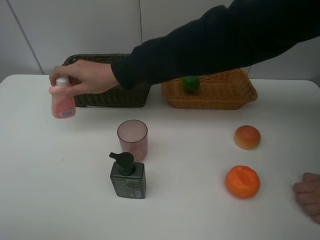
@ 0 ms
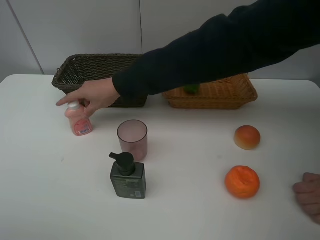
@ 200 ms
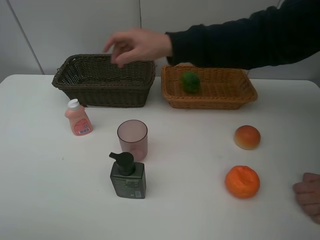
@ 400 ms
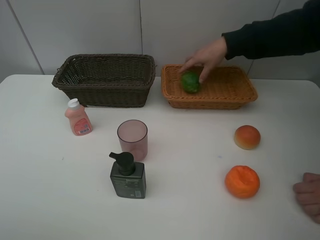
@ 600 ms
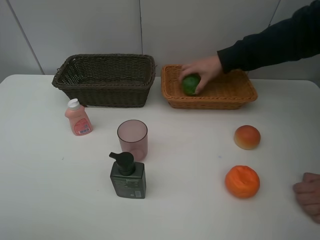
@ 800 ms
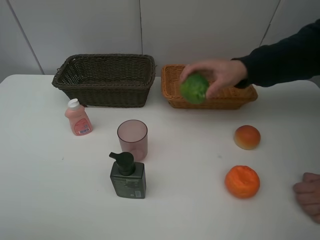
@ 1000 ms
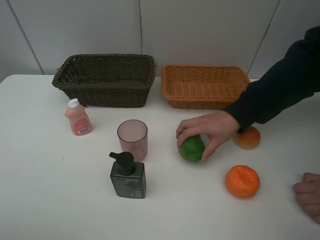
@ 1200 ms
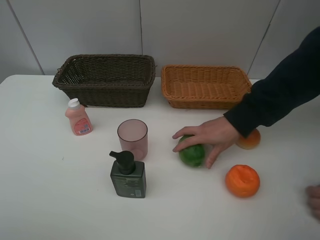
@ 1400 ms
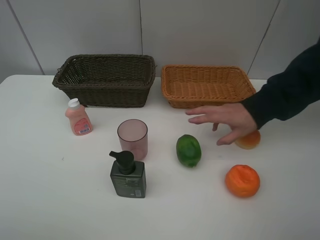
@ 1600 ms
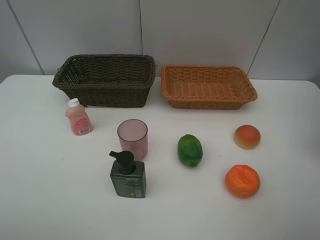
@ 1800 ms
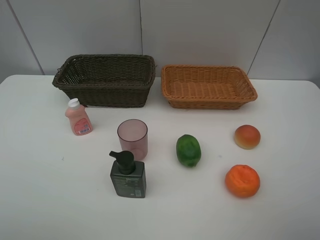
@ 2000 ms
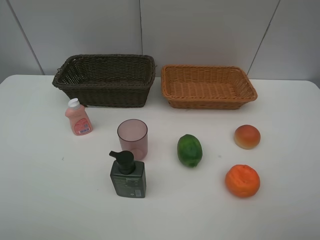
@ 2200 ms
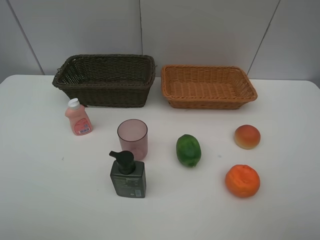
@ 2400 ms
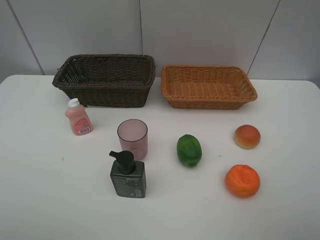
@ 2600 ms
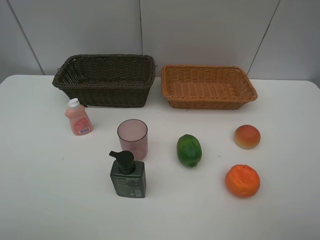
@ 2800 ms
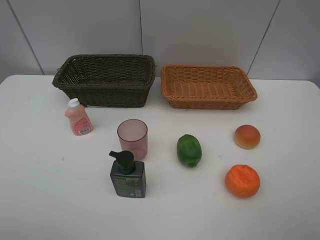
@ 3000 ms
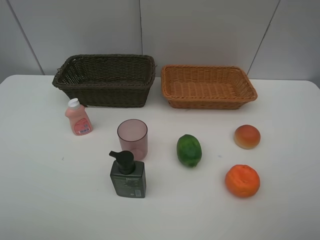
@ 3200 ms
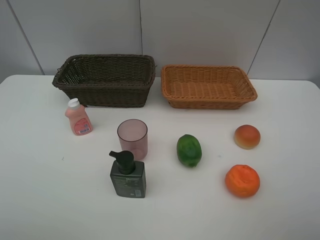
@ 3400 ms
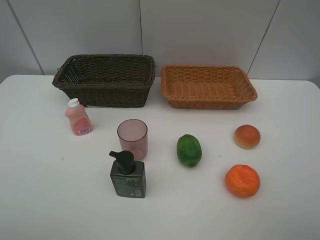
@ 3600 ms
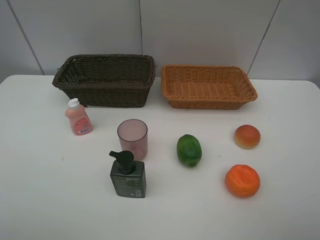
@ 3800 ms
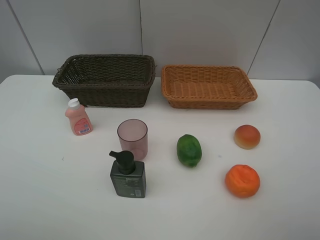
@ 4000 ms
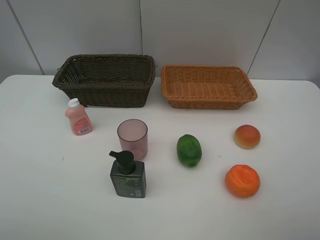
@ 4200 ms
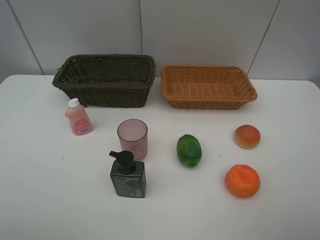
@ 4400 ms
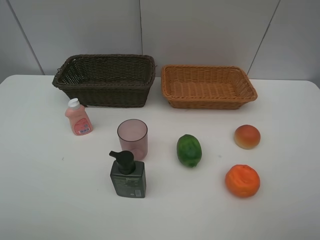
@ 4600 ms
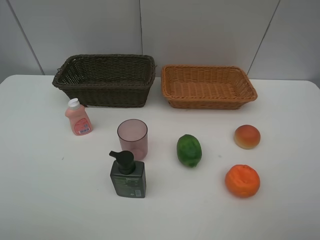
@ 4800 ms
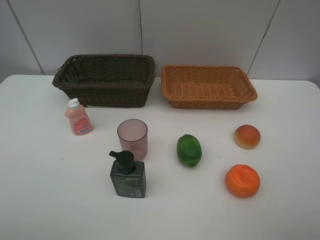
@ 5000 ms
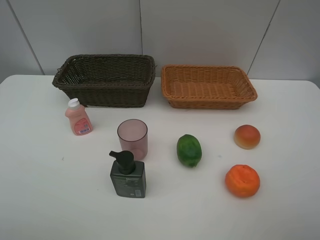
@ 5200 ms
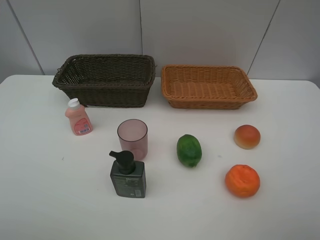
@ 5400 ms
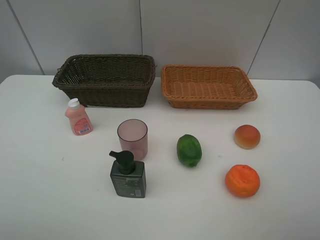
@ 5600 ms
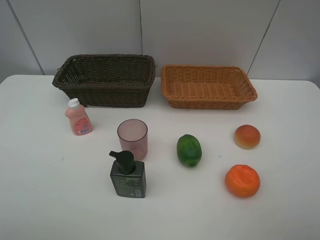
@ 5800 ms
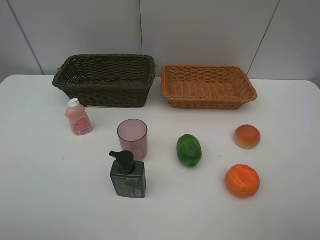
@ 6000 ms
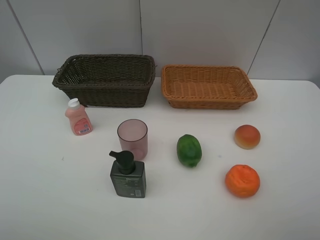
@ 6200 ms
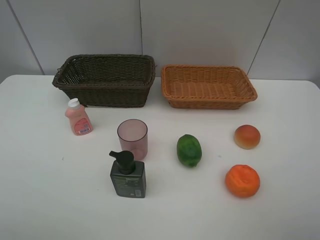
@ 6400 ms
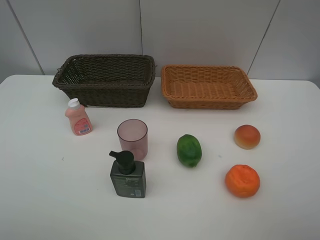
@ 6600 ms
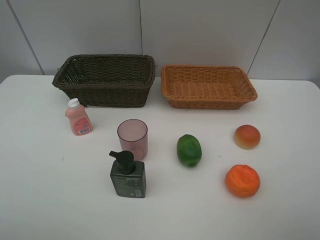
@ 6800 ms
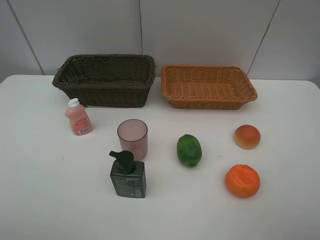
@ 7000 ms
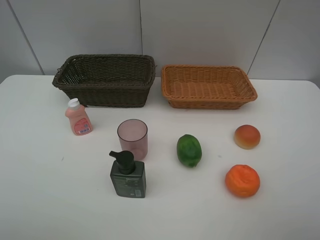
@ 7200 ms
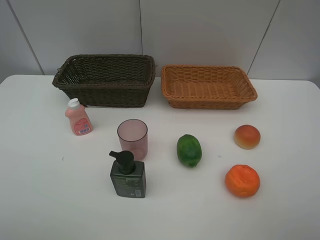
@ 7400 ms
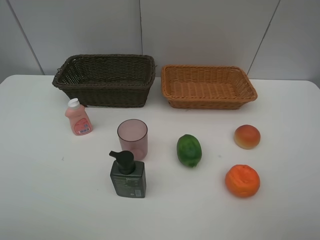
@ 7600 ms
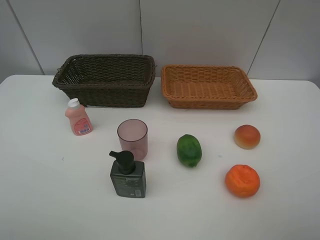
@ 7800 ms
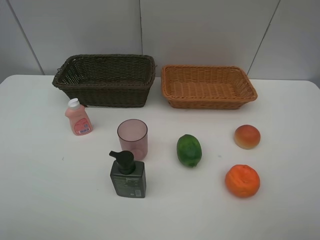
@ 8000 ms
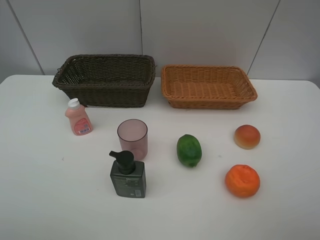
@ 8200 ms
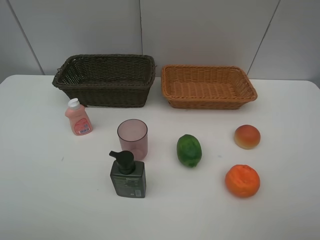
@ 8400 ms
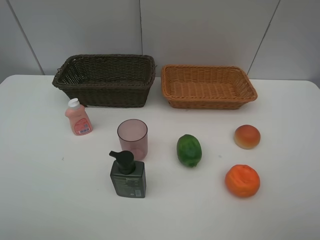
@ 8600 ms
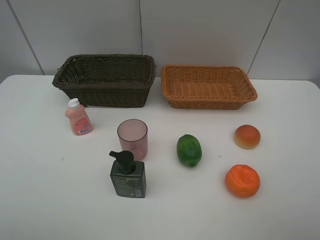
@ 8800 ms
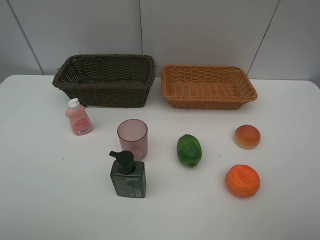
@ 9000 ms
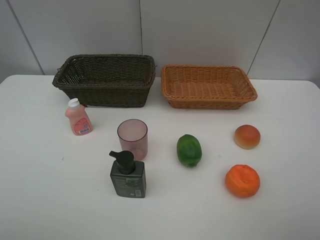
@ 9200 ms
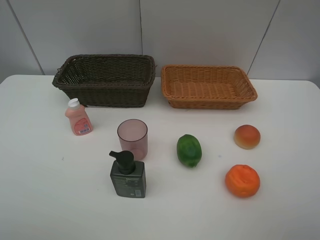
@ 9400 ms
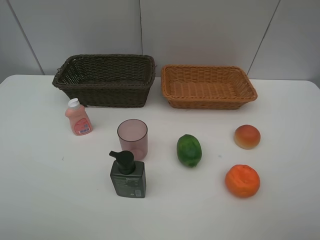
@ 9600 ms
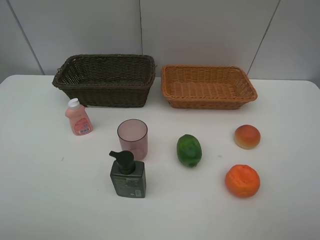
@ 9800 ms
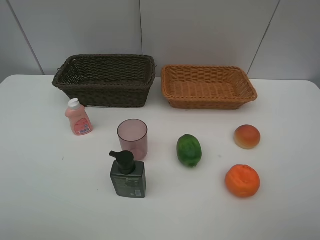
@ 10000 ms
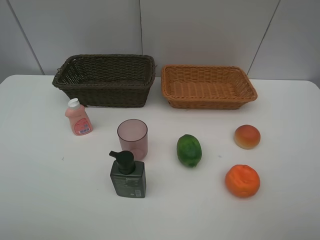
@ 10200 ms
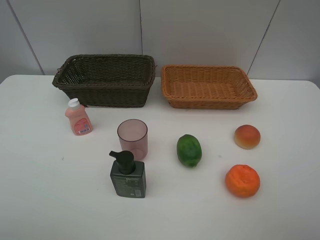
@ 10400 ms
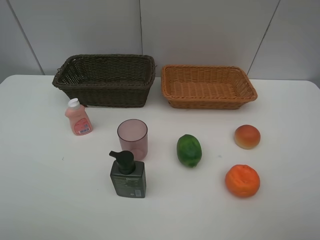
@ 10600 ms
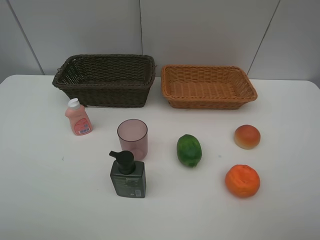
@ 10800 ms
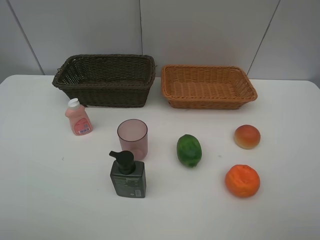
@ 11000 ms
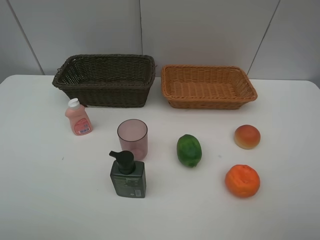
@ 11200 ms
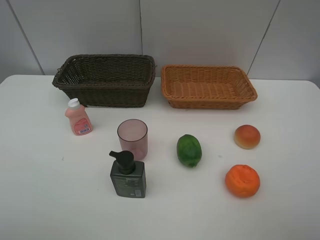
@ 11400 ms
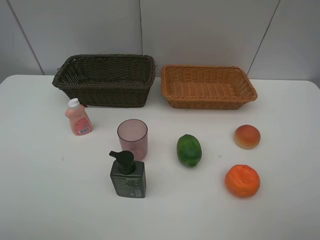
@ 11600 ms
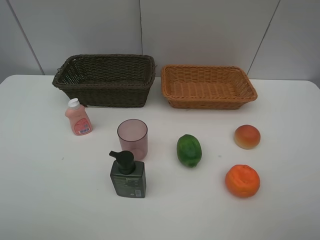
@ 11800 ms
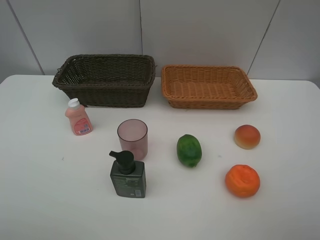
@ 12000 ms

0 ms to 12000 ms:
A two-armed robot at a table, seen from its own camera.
Task of the whole recording: place multiple objects separately in different baskets.
1600 ms to 12000 ms: Both grippers stay put.

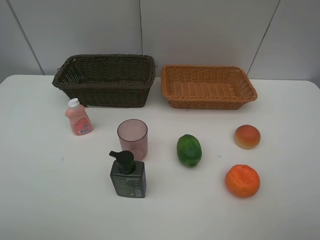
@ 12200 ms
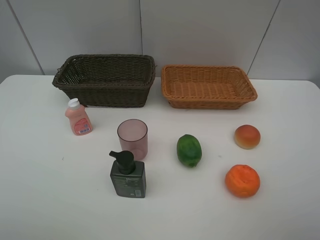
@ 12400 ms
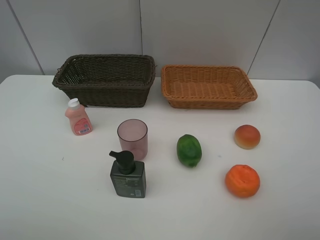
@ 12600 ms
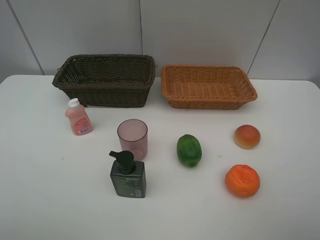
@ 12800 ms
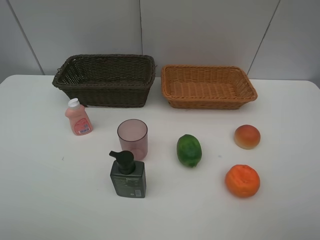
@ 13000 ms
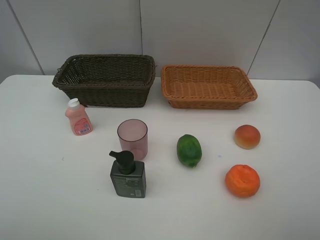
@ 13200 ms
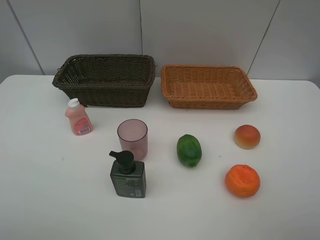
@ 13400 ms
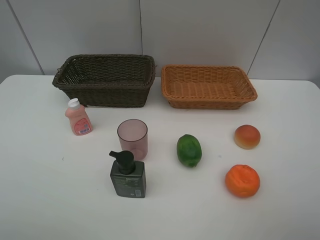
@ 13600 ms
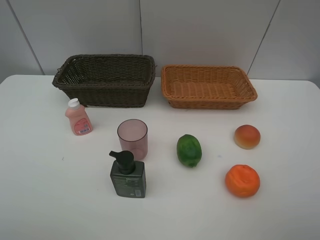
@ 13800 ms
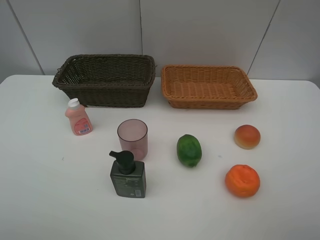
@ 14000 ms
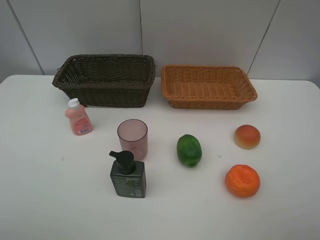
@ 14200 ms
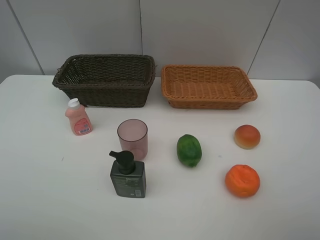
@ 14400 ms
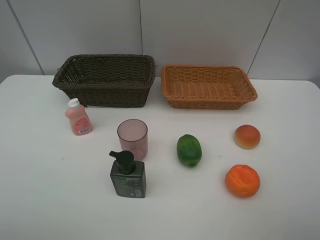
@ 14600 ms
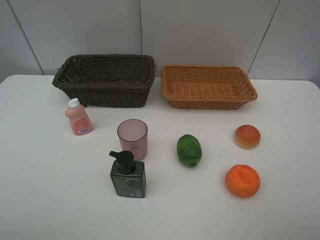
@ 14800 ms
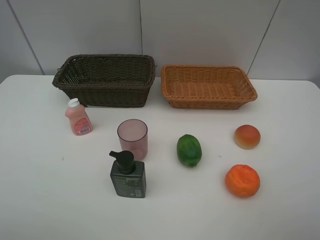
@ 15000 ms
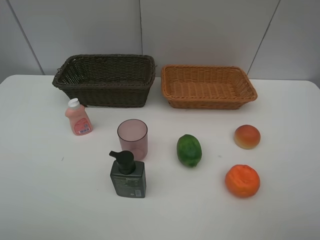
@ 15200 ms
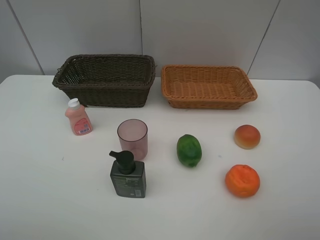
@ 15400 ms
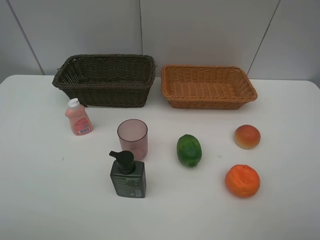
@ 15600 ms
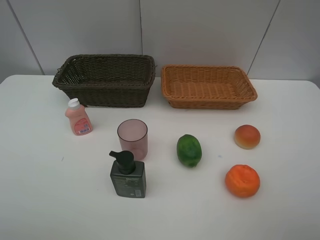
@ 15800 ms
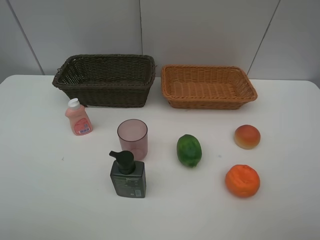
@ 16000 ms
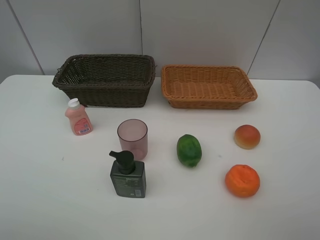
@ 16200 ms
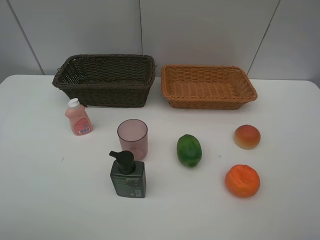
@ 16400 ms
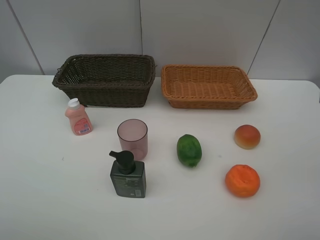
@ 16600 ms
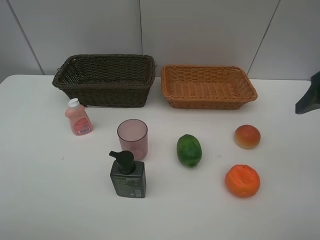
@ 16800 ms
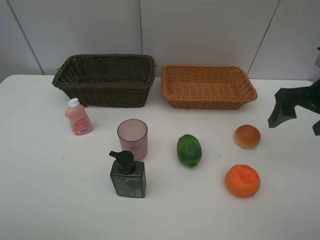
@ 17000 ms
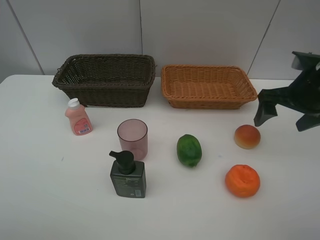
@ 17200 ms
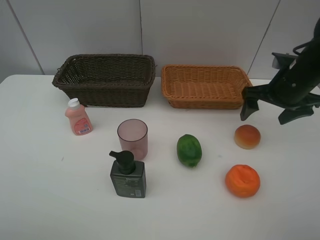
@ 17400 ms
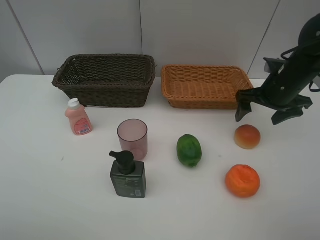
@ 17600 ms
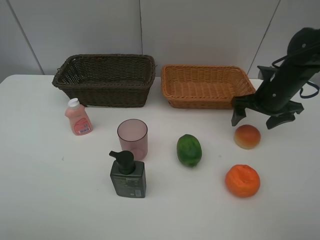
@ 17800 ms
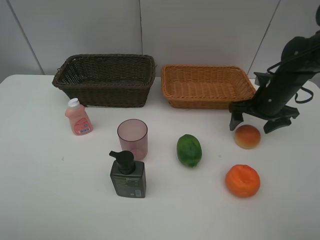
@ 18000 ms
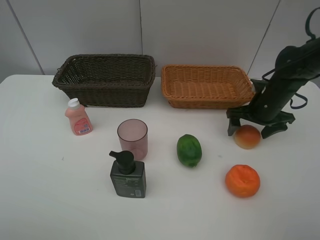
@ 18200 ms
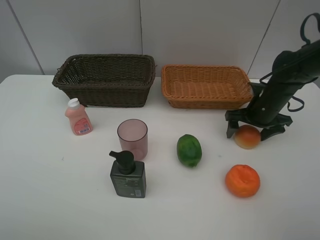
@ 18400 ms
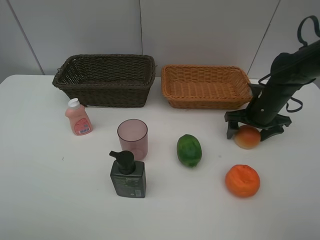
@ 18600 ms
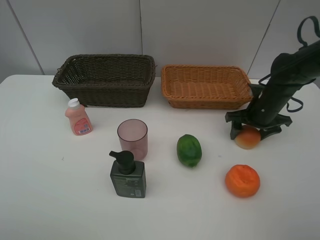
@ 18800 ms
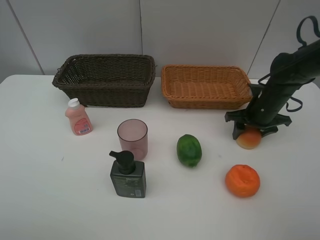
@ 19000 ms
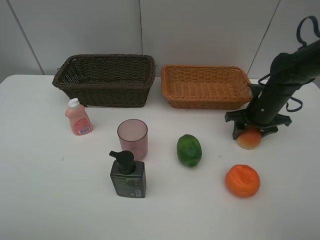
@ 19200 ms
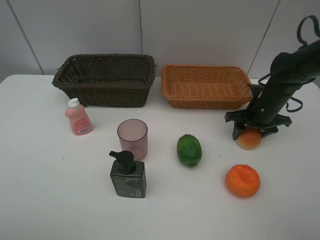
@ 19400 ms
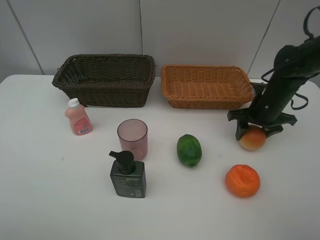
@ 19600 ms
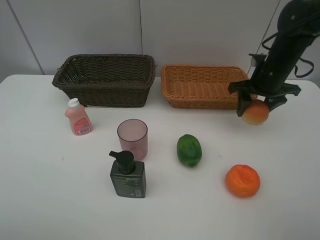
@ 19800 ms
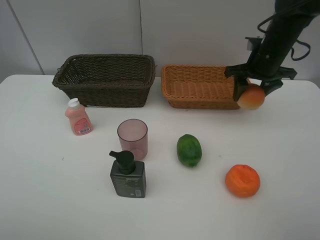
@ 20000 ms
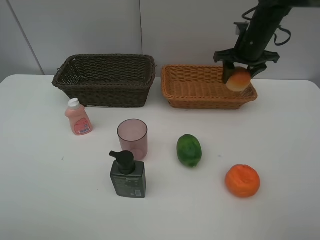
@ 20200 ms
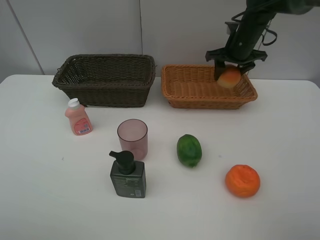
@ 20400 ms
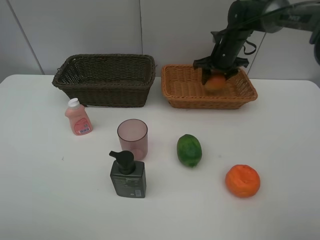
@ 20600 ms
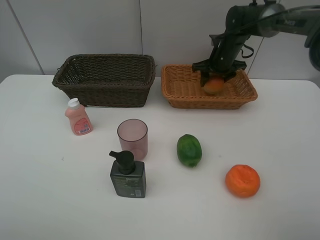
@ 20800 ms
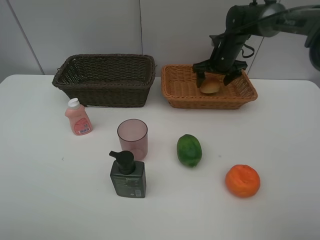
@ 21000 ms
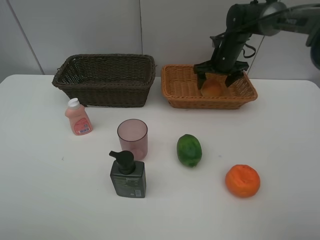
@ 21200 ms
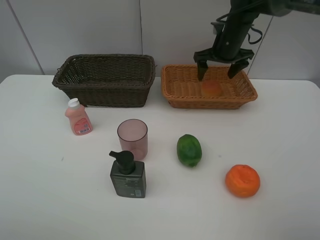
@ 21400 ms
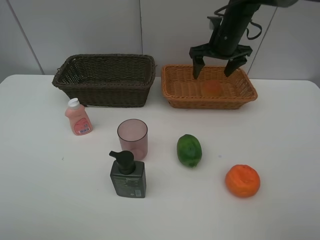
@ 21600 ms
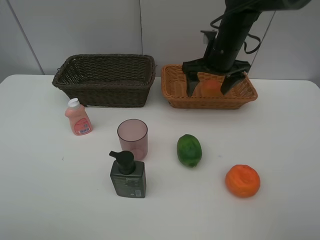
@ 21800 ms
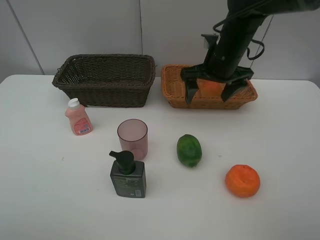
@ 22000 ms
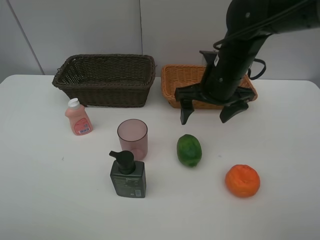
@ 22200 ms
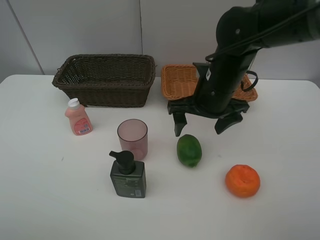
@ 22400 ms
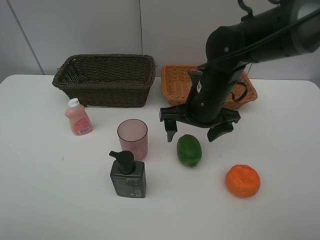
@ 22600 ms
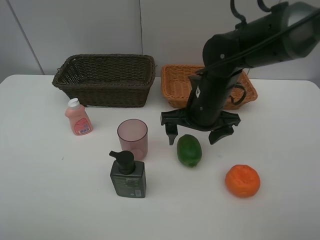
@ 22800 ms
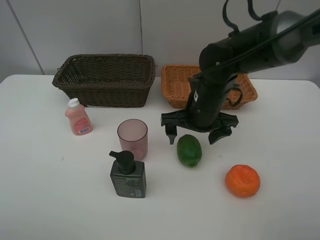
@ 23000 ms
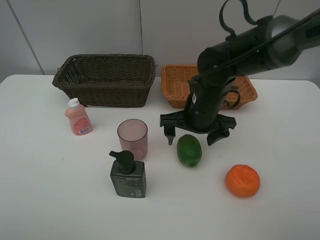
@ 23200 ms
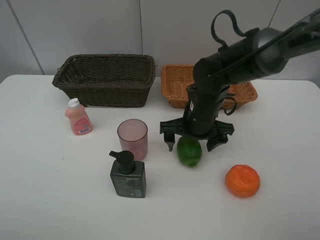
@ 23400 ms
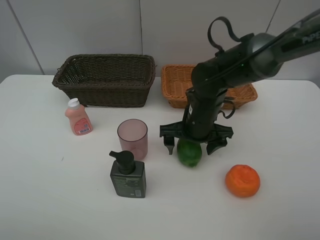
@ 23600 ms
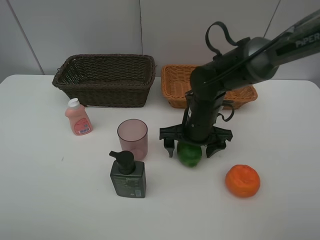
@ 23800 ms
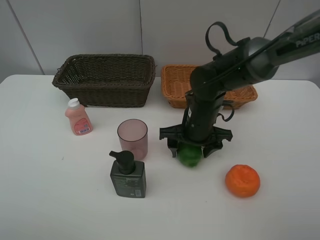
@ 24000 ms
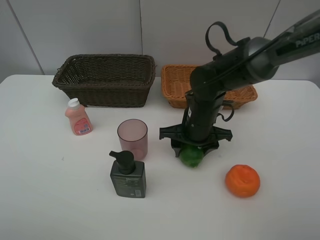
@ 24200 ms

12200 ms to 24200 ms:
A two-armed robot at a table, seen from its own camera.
Task of the whole recording: place multiple objects separately in different baskets.
12200 ms to 15200 ms: Neither gripper changes place.
16600 ms to 18200 ms: The right gripper travels downward and forward by approximately 25 cm.
18200 ms to 19800 ms: The right gripper goes some 5 cm upward, and closes.
19800 ms to 21200 ms: The right gripper goes approximately 15 cm forward and to the left, and opens up.
21200 ms to 22600 ms: The right gripper goes approximately 25 cm backward and to the left.
22600 ms to 24200 ms: The right gripper travels downward by some 5 cm, and closes.
